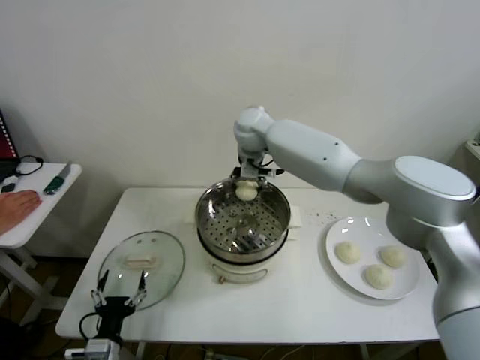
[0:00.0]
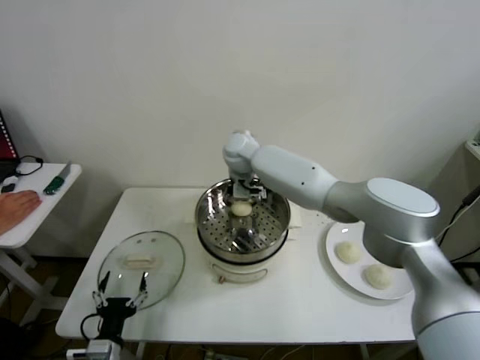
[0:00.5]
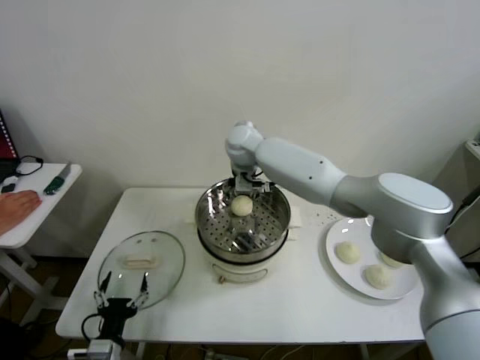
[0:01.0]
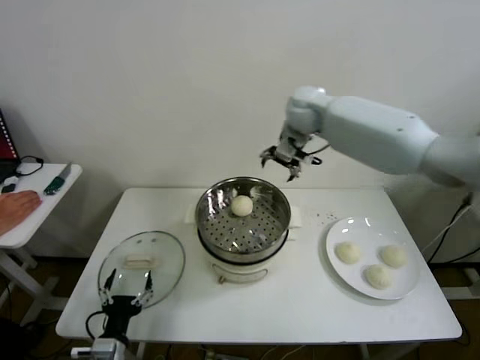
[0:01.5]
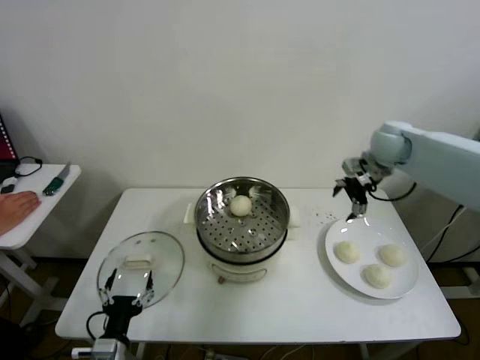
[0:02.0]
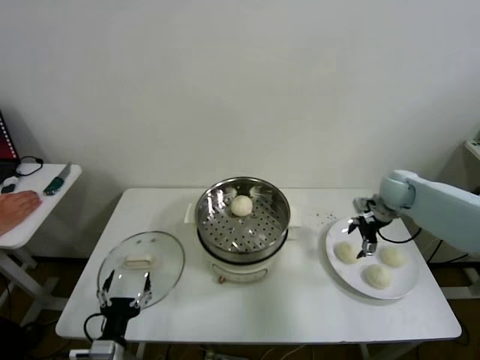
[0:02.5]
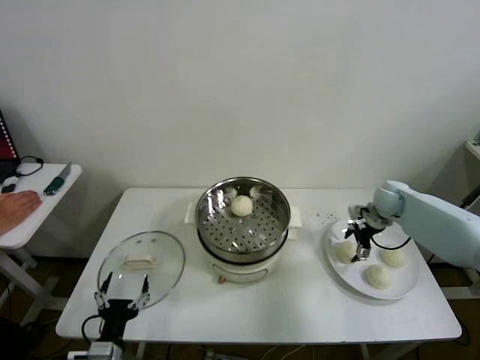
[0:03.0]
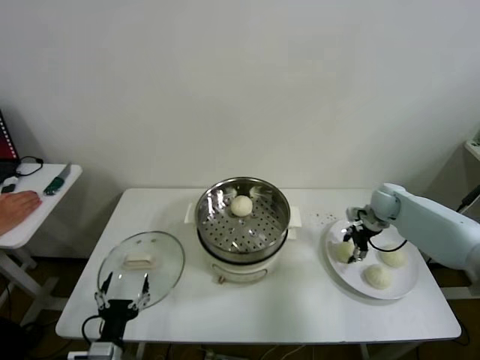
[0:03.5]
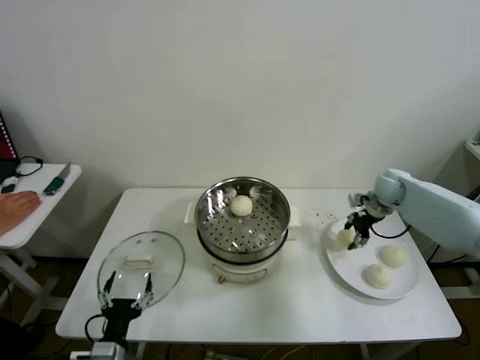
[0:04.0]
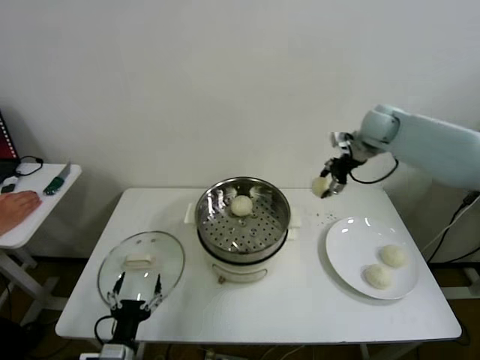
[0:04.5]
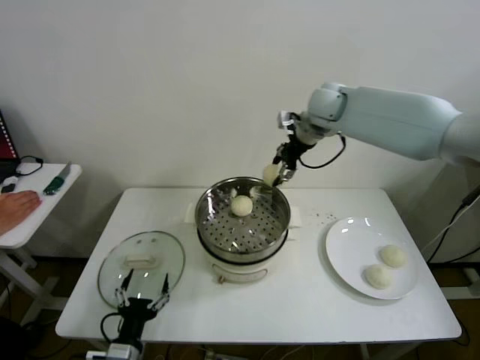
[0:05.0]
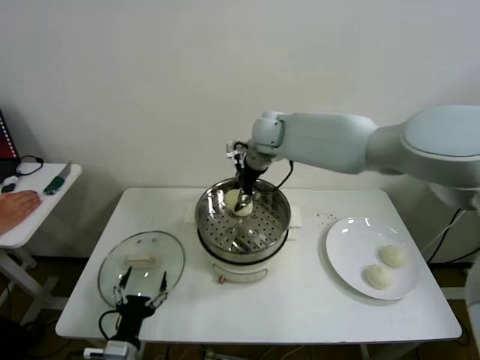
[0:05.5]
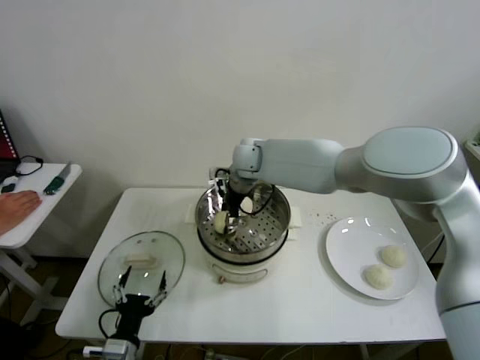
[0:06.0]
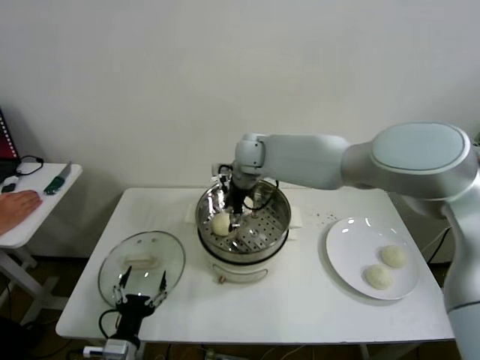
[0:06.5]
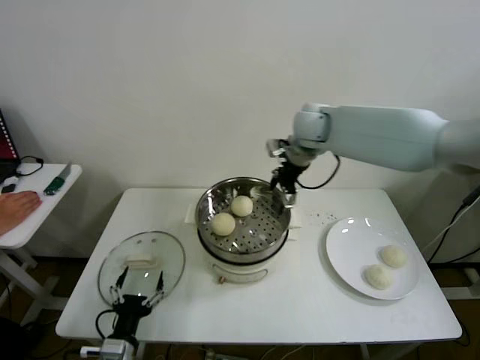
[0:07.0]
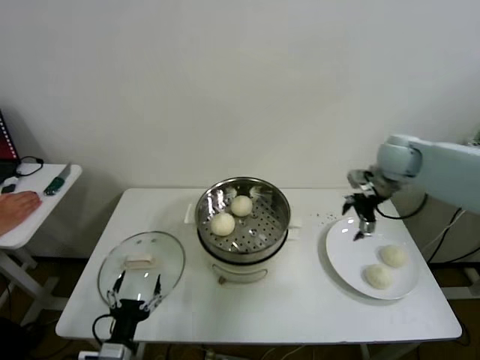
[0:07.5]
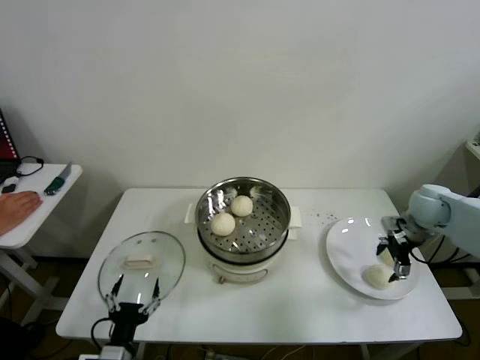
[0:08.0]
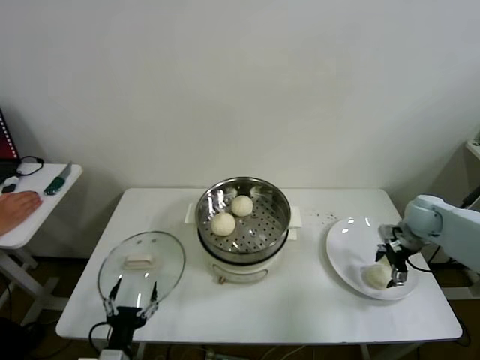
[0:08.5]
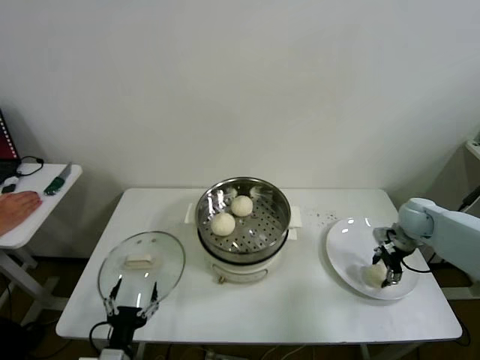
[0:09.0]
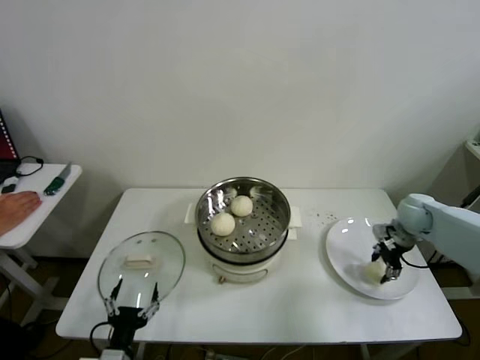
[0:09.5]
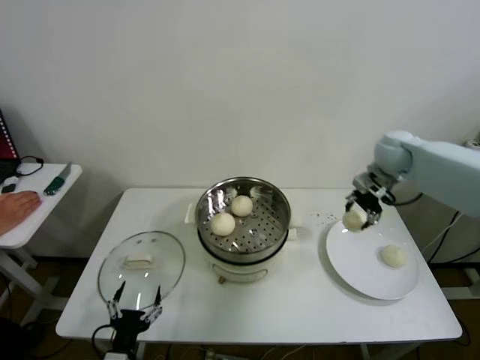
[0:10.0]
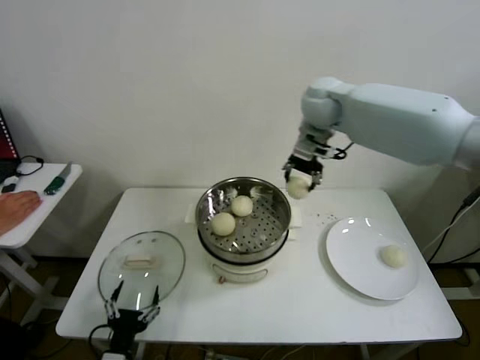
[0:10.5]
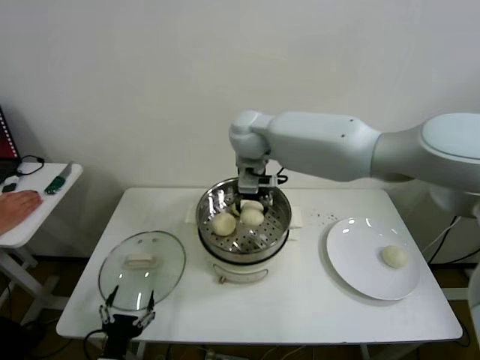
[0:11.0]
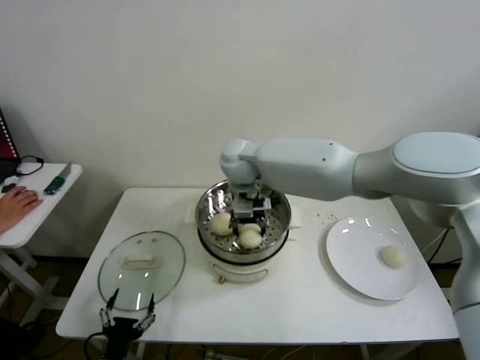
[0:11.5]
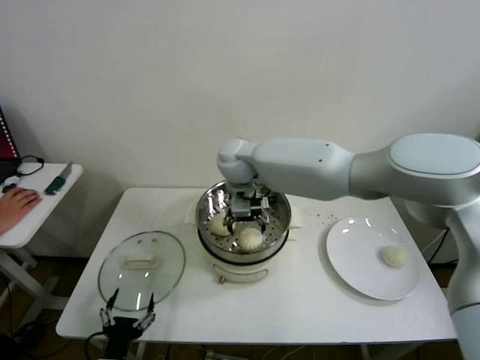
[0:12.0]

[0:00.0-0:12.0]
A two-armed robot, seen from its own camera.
Step, 0:01.0 to 0:03.5: Grasp the baozi in the plate with right gripper.
Step, 0:04.0 to 0:06.0: Place the baozi on the steamer with right gripper.
Step, 0:06.5 to 0:09.0: Grasp the baozi in the plate with right gripper.
Step, 0:09.5 to 0:11.5: Place the baozi on the steamer with right gripper.
0:00.0 to 0:02.0: The right gripper shifts about 30 cm to the right, and opens up.
0:02.0 to 0:04.0: The right gripper goes some 15 cm downward and to the right, and closes up.
0:04.0 to 0:06.0: The right gripper is displaced to the left by some 40 cm.
0:06.0 to 0:08.0: The right gripper travels to the right by some 40 cm, and opens its fingers.
0:08.0 to 0:10.0: The right gripper is displaced upward, forward and to the left by roughly 15 cm, and closes its fingers.
0:10.0 to 0:12.0: The right gripper travels to the left by some 40 cm, and opens up.

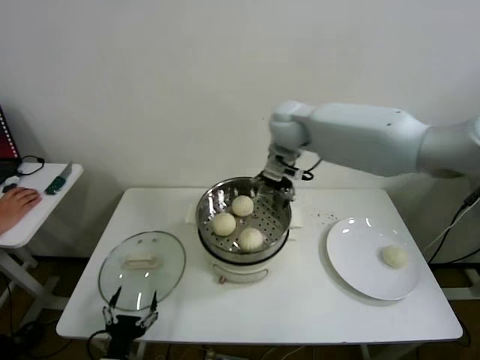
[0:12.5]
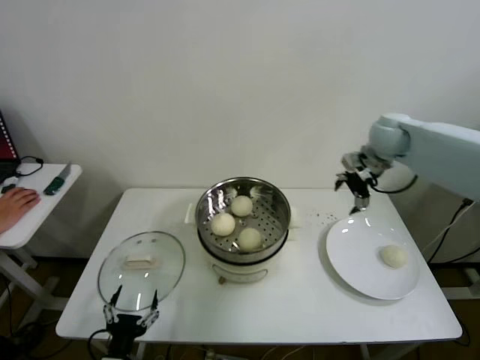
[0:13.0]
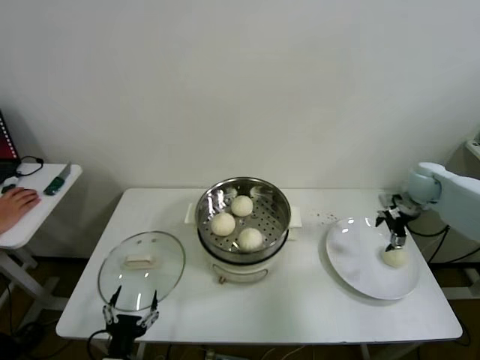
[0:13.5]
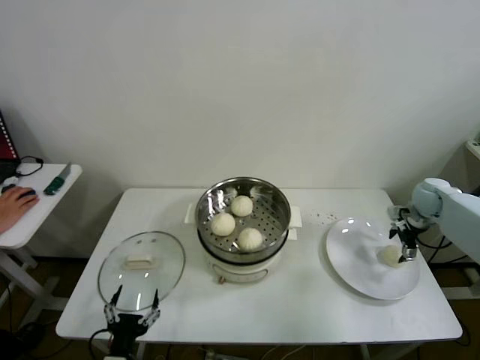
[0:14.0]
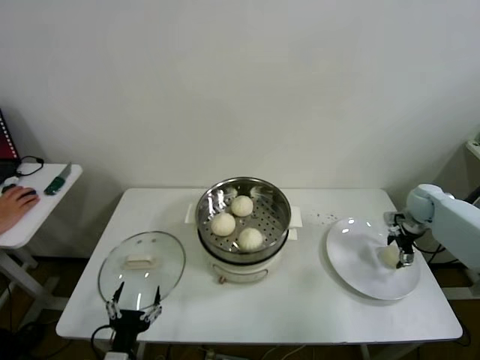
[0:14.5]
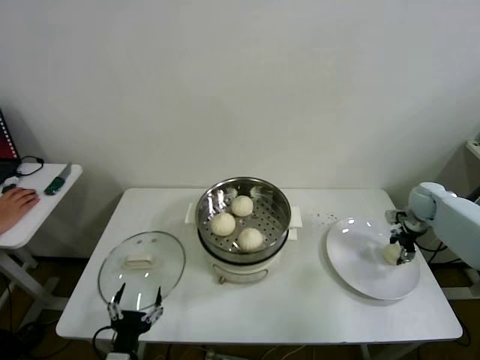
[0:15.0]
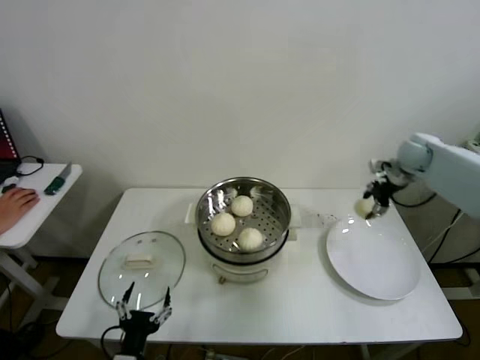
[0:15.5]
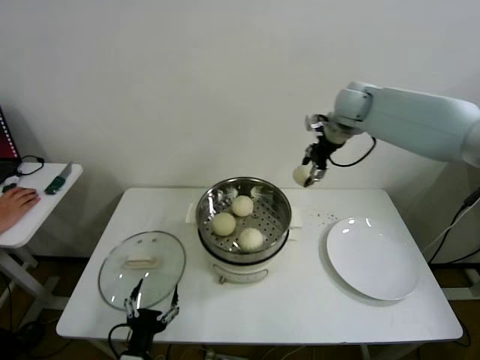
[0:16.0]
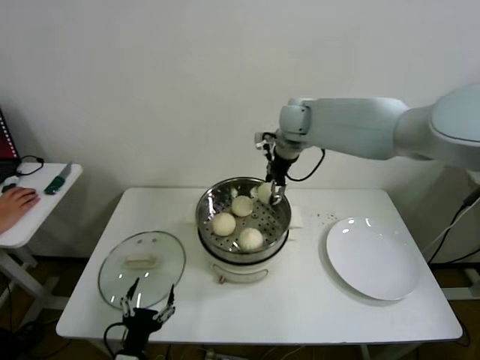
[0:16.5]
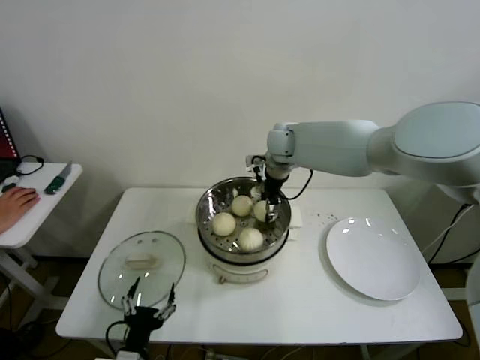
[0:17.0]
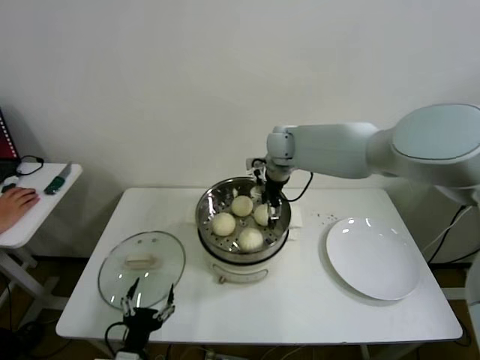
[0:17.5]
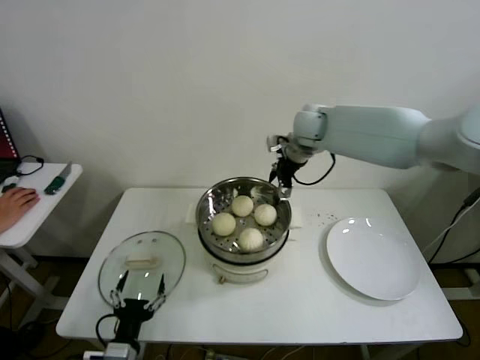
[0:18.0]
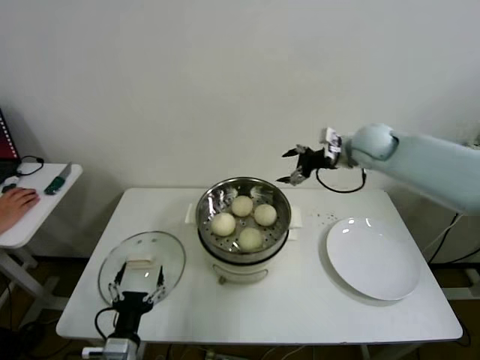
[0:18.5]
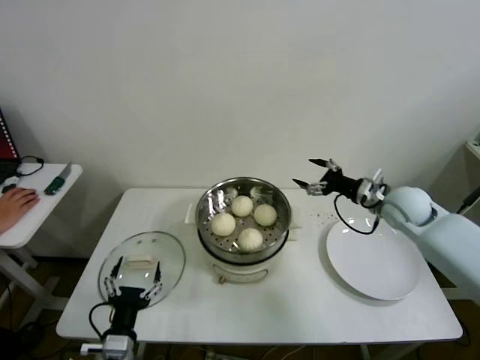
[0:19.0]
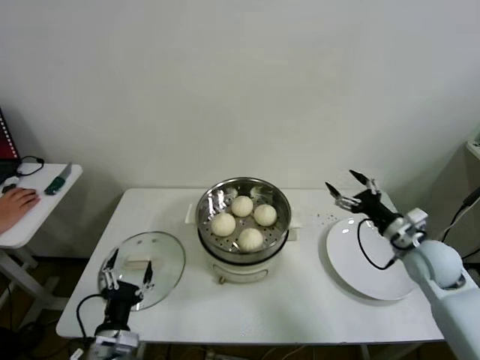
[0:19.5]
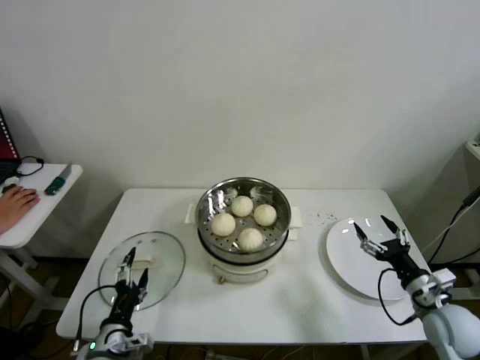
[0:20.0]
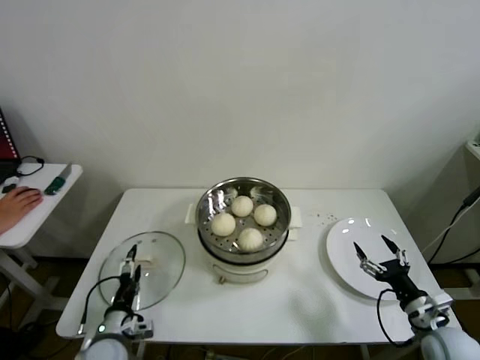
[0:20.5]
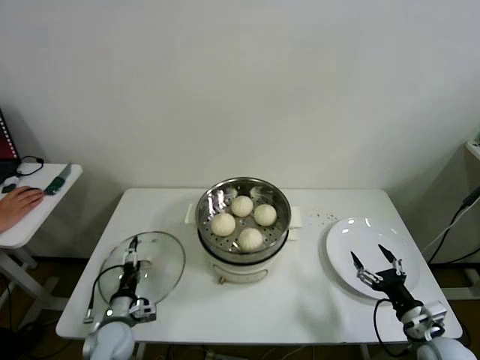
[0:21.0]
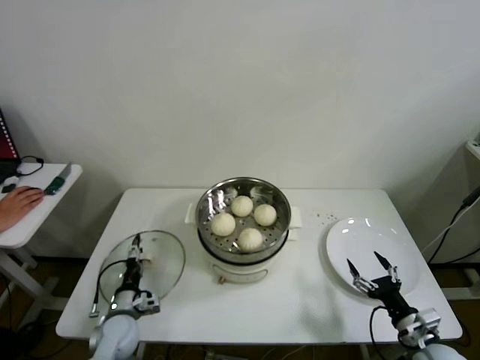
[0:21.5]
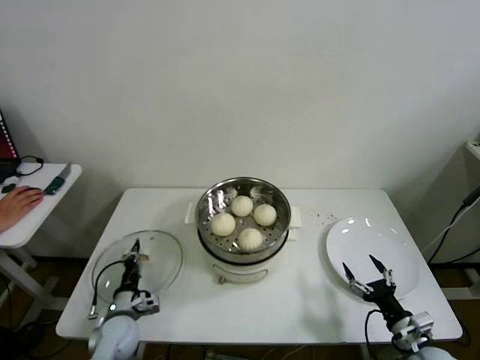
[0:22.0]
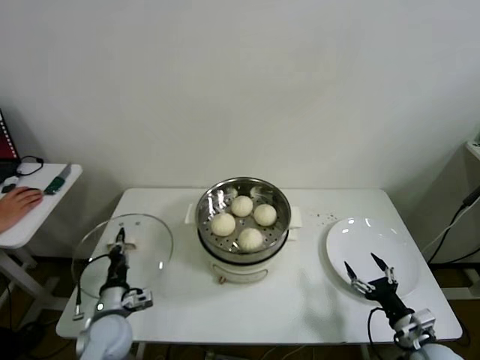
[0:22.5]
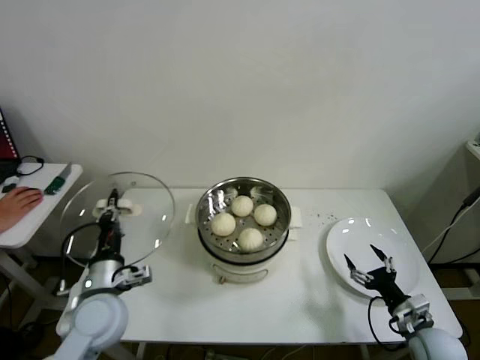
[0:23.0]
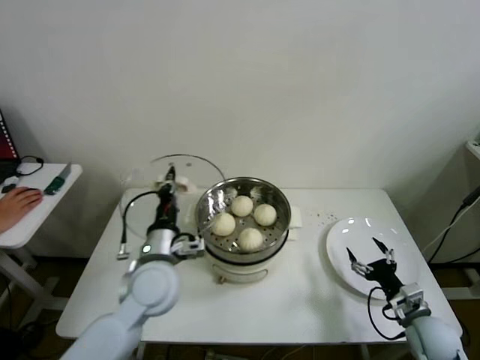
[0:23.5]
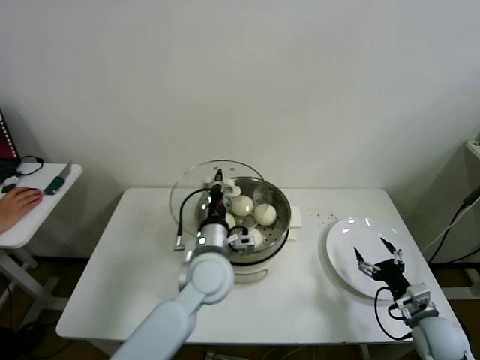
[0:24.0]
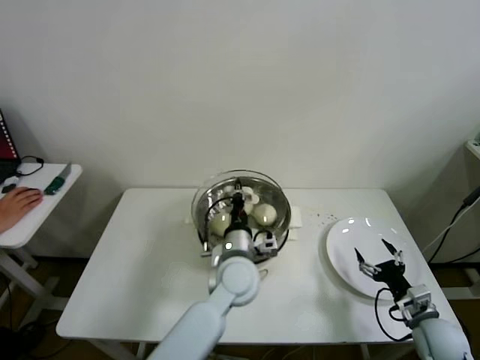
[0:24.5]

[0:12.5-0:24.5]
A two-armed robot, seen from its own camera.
Step, 0:12.5 to 0:14.5: Grasp the baozi in the plate with right gripper.
Step, 0:15.0 to 0:17.0: Place the baozi on the steamer with right gripper.
Step, 0:17.5 to 0:22.0: Grasp the pot lid with left gripper.
0:12.5 to 0:14.5: The right gripper goes some 50 cm to the right and downward.
0:14.5 to 0:16.5: The right gripper heads to the left and upward, covering roughly 40 cm, and closes up.
0:16.5 to 0:18.5: The right gripper travels to the right by roughly 15 cm, and opens up.
0:18.5 to 0:20.5: The right gripper moves backward and downward, about 40 cm, while the left gripper shifts approximately 10 cm forward and to the left.
0:20.5 to 0:22.5: The right gripper moves downward, approximately 5 cm. Meanwhile the left gripper goes approximately 5 cm forward, and closes.
0:22.5 to 0:24.5: The right gripper changes place by approximately 5 cm; the left gripper goes about 30 cm to the right and upward.

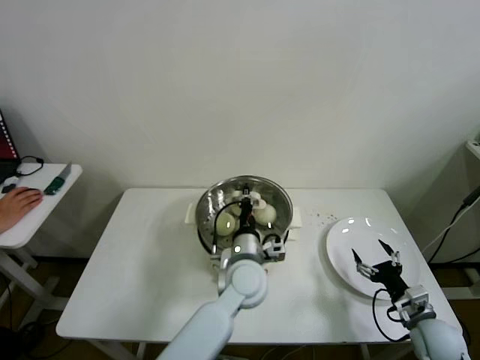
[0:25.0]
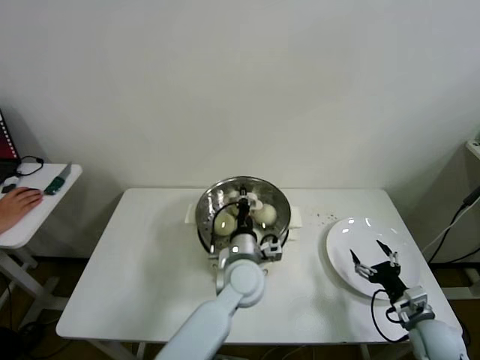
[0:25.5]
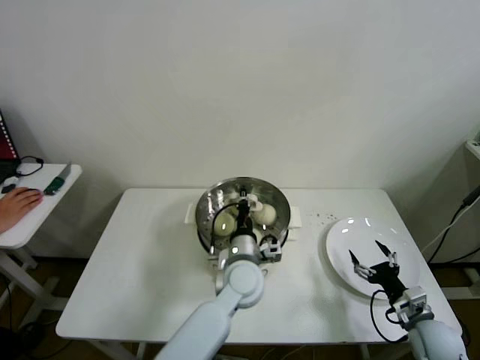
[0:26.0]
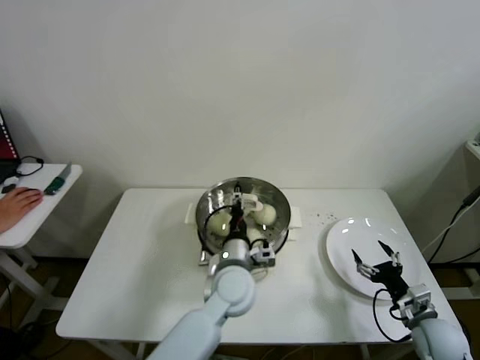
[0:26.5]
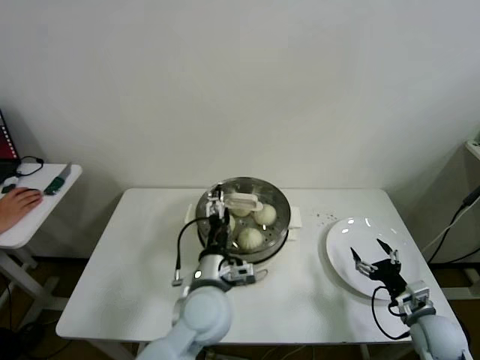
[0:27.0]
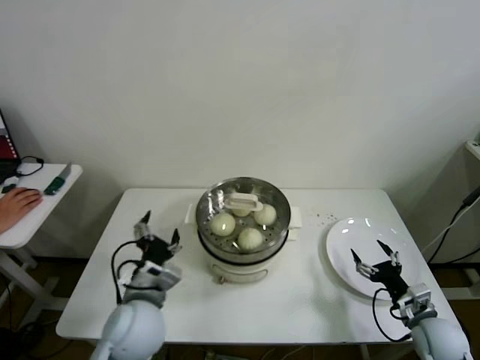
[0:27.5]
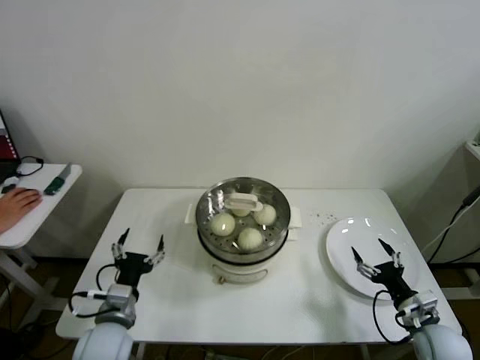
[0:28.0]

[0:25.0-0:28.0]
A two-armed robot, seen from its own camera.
0:25.0 to 0:26.5: The left gripper opens its fingers.
0:26.5 to 0:28.0: The left gripper moves to the left and backward, some 25 cm, and opens up.
